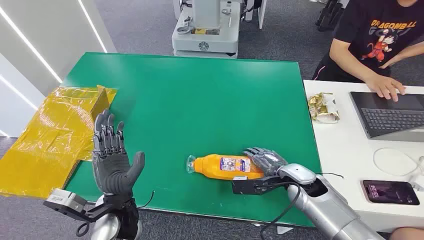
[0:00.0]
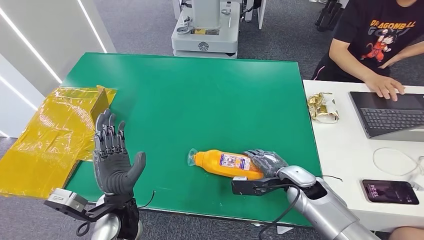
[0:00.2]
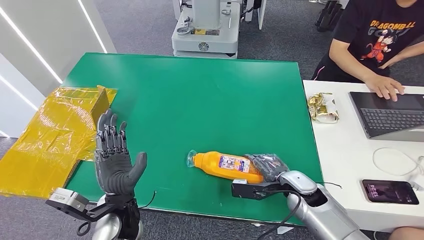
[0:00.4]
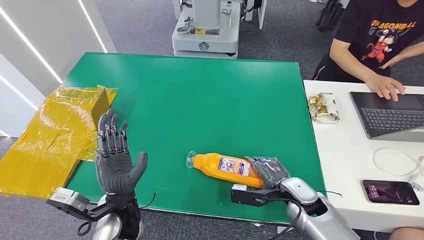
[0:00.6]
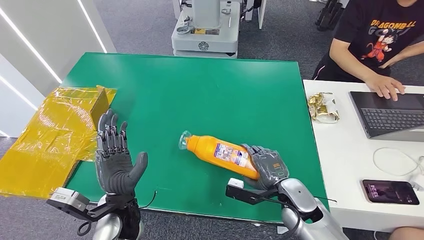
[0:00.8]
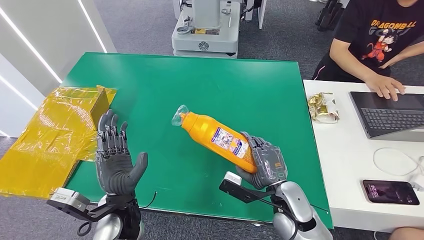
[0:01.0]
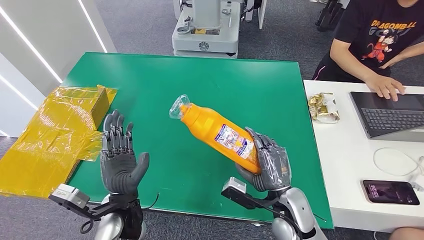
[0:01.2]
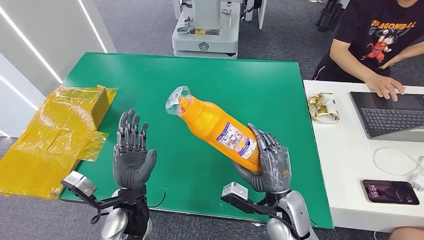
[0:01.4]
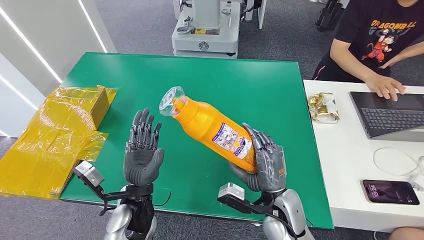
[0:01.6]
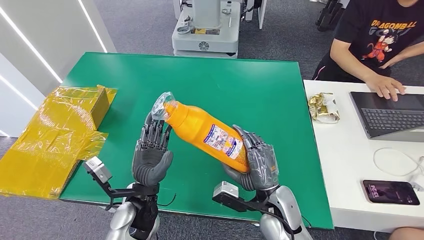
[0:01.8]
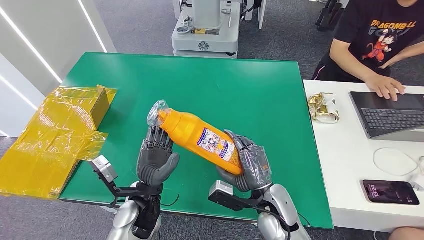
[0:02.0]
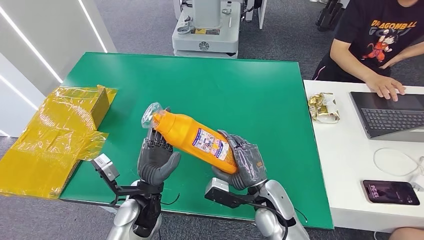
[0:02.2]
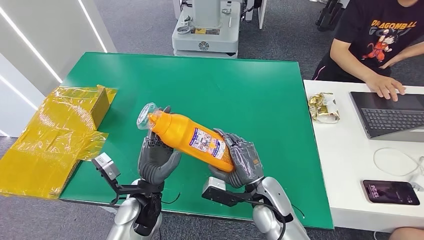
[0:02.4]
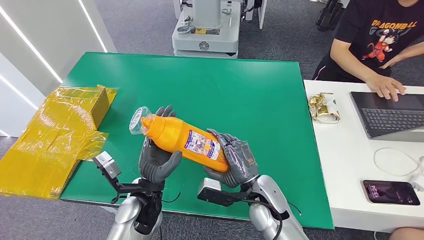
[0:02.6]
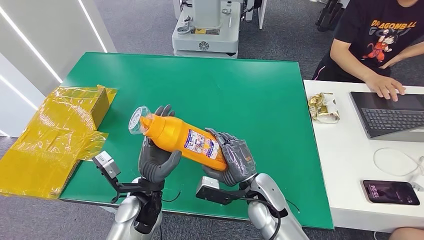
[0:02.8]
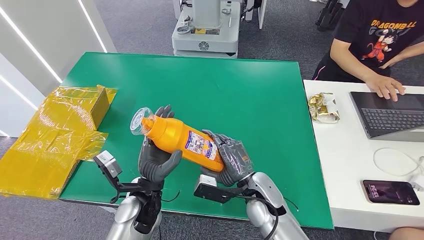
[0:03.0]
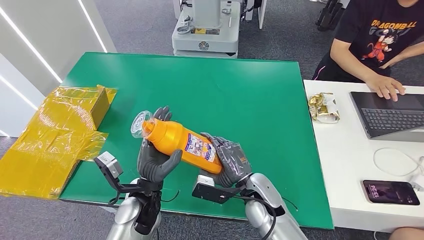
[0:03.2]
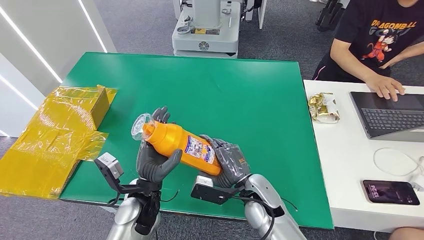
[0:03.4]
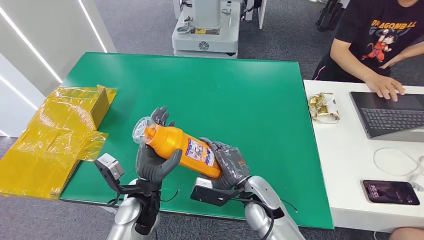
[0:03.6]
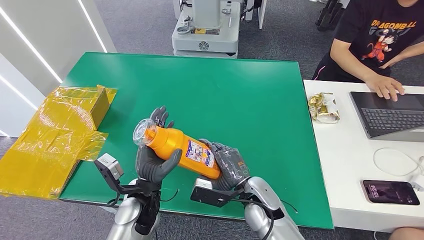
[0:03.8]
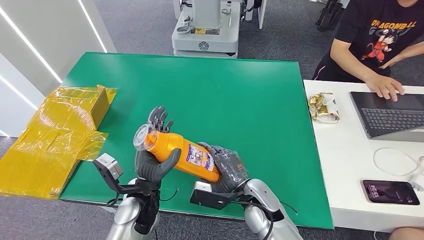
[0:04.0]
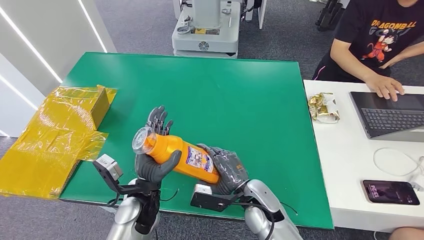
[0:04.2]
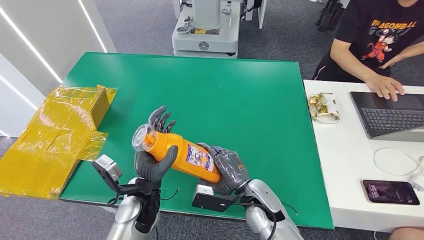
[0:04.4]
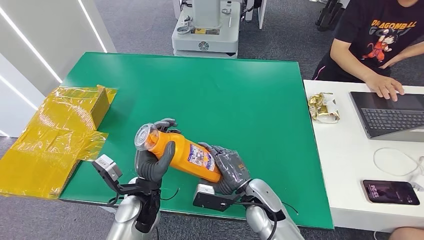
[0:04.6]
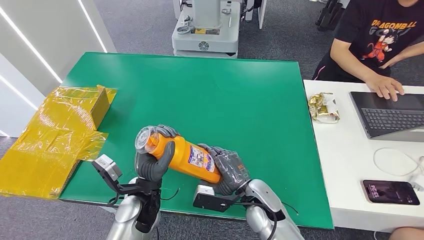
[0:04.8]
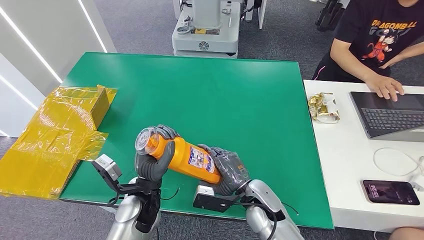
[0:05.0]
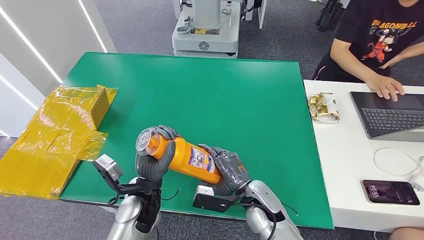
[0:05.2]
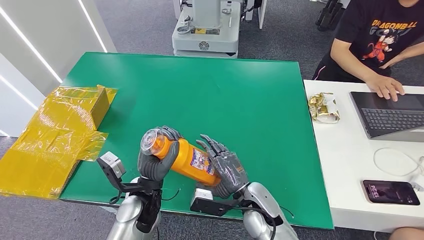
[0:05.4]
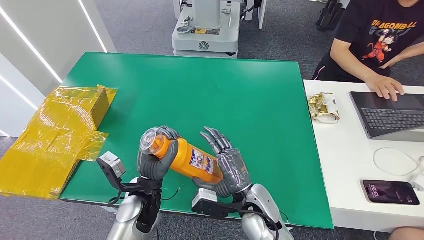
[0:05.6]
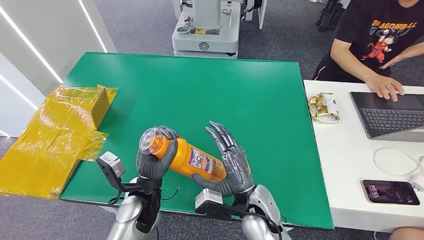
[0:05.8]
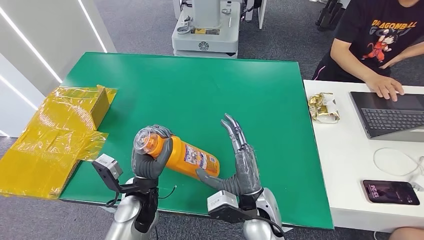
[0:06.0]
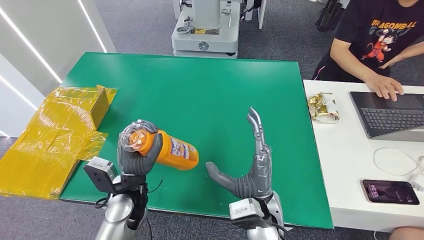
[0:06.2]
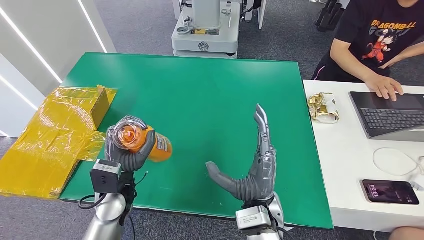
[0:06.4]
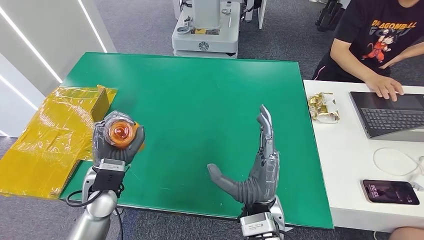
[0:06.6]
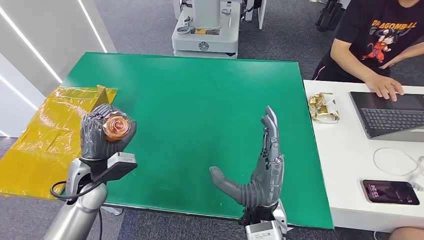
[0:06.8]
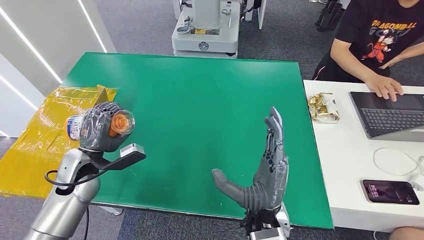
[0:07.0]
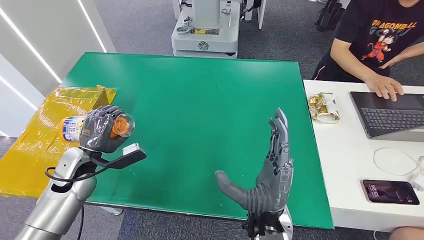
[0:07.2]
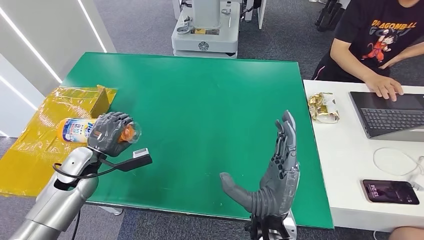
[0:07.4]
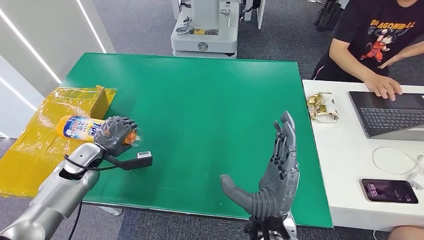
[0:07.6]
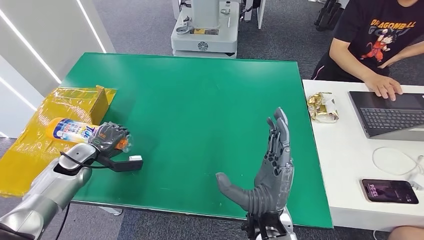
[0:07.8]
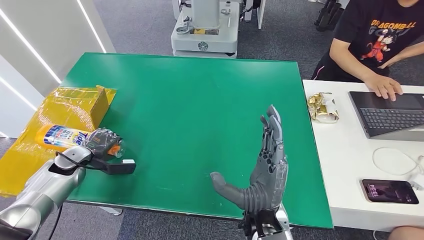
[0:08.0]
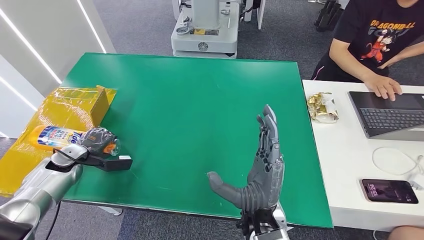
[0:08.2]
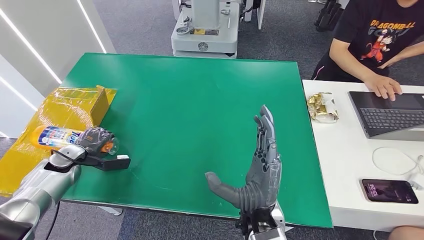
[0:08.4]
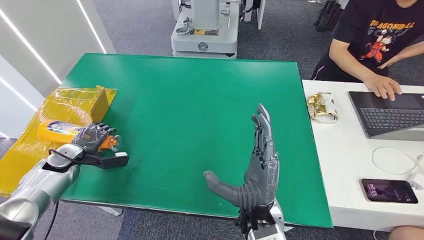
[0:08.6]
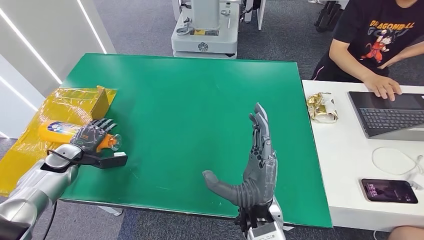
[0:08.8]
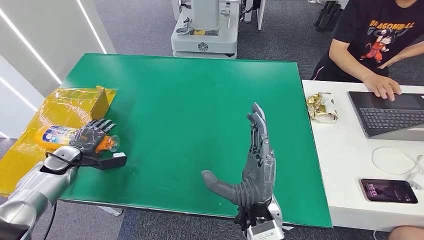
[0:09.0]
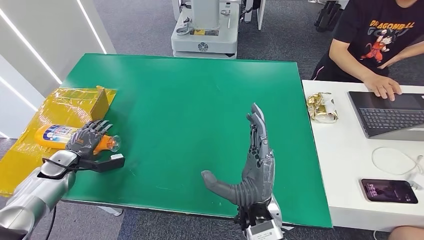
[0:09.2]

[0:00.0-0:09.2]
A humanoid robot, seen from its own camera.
Step, 0:00.0 to 0:02.6: Pick up the bottle from the table.
Step, 0:02.8 to 0:09.2: Turn the bottle to the front side.
0:01.6 to 0:03.0: The right hand changes place by about 5 cm.
0:03.0 to 0:04.6: There are only small adjustments of the hands.
0:04.6 to 0:06.2: The right hand is displaced upward by approximately 5 cm.
0:06.2 to 0:07.6: The left hand goes roughly 20 cm to the left and forward.
0:07.6 to 0:09.2: The left hand shifts some 10 cm to the left.

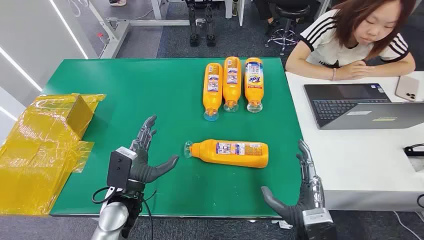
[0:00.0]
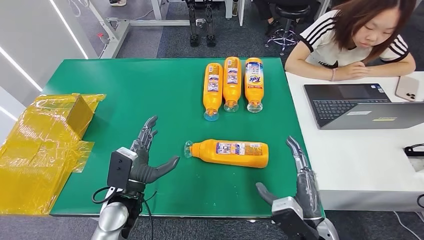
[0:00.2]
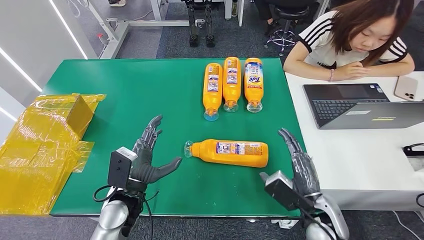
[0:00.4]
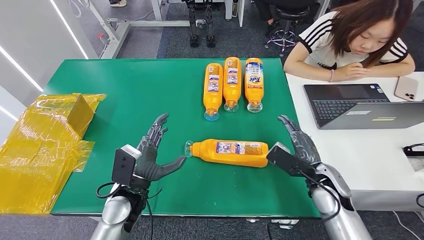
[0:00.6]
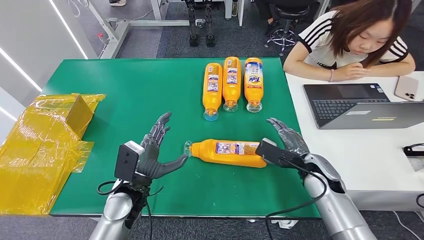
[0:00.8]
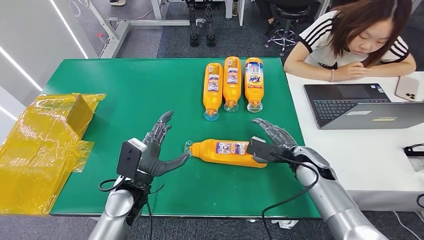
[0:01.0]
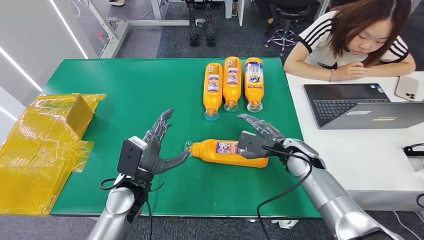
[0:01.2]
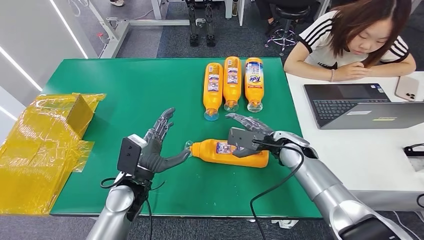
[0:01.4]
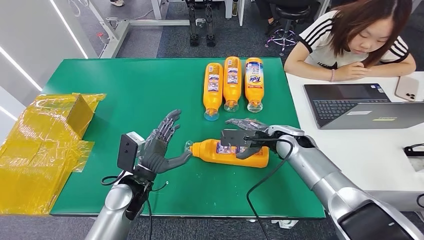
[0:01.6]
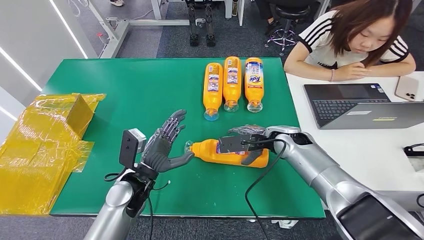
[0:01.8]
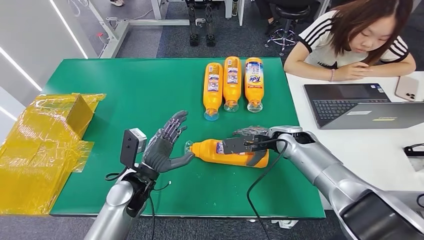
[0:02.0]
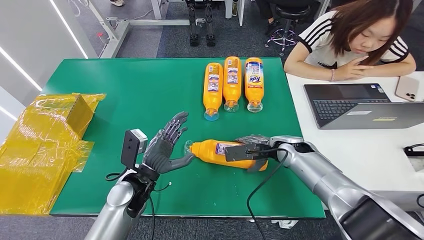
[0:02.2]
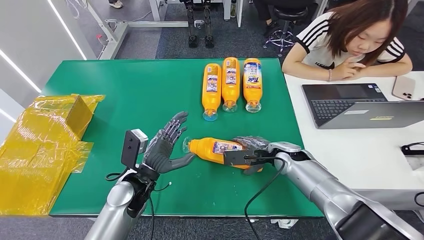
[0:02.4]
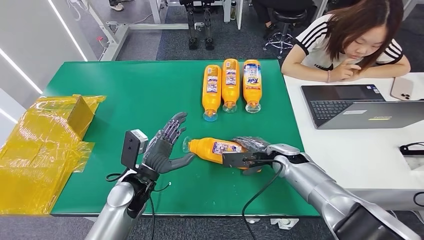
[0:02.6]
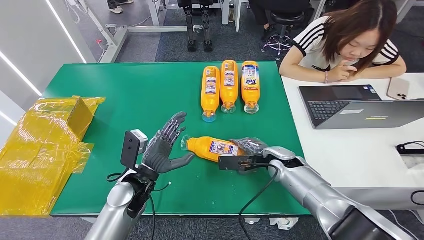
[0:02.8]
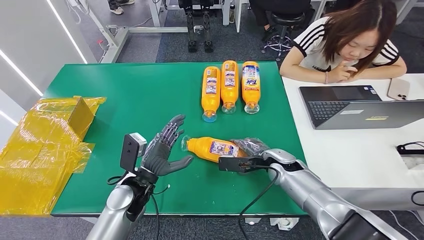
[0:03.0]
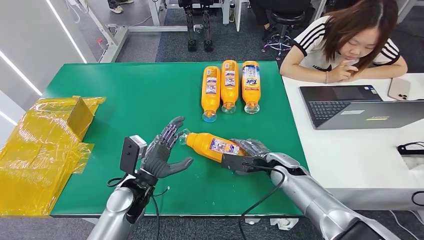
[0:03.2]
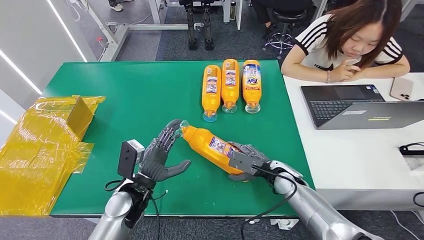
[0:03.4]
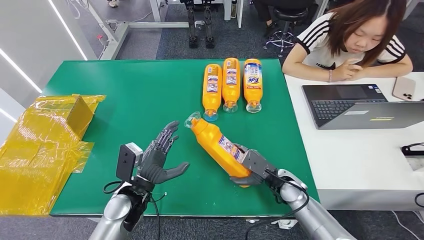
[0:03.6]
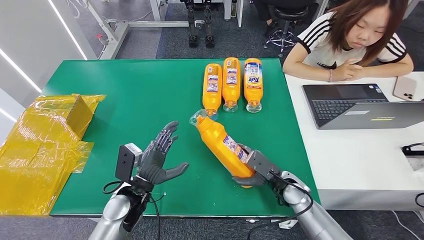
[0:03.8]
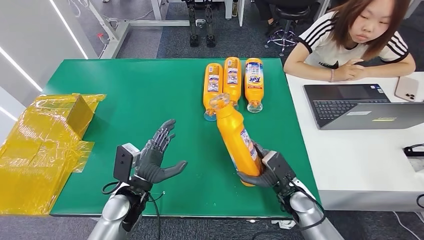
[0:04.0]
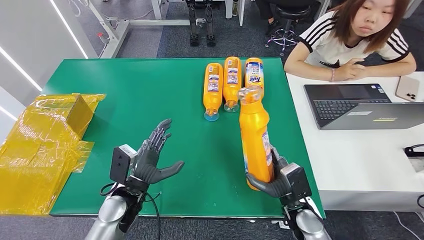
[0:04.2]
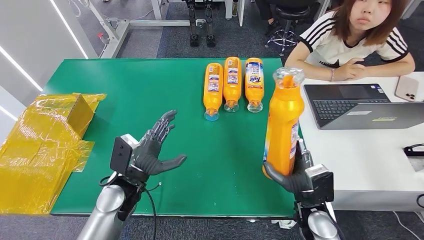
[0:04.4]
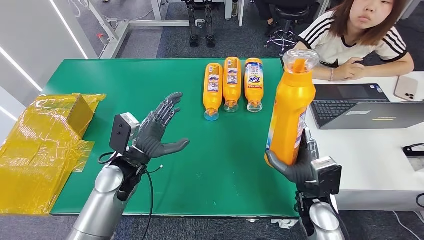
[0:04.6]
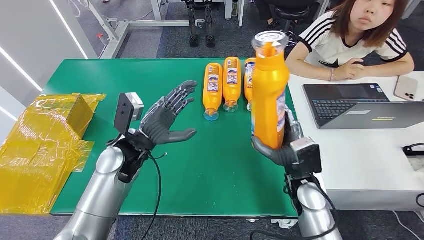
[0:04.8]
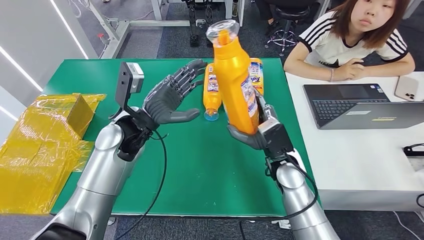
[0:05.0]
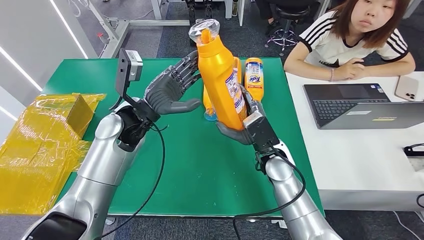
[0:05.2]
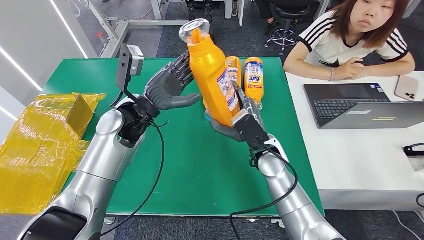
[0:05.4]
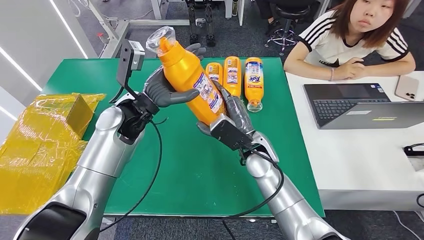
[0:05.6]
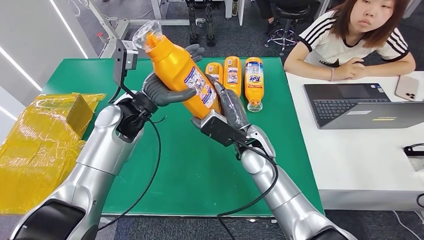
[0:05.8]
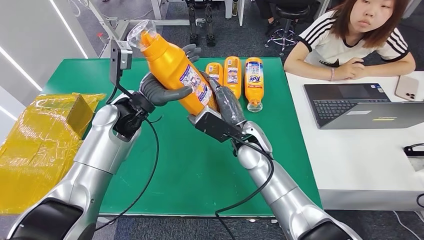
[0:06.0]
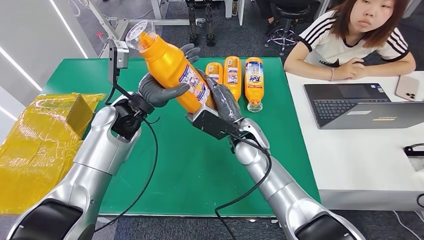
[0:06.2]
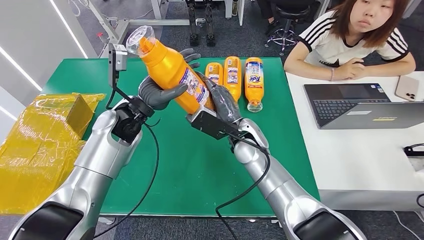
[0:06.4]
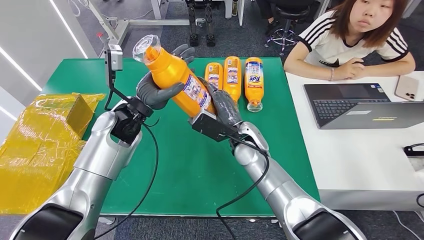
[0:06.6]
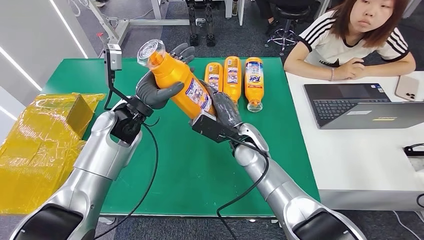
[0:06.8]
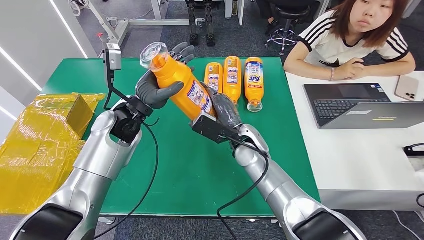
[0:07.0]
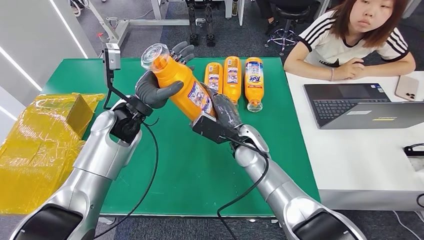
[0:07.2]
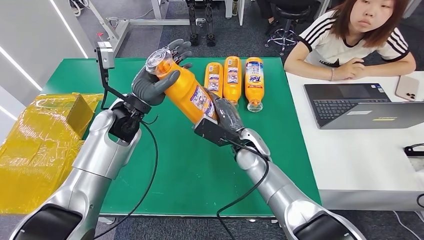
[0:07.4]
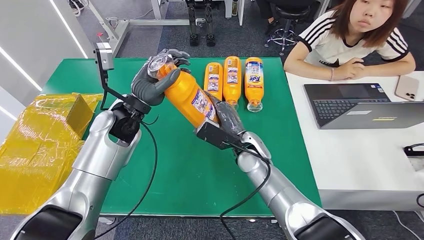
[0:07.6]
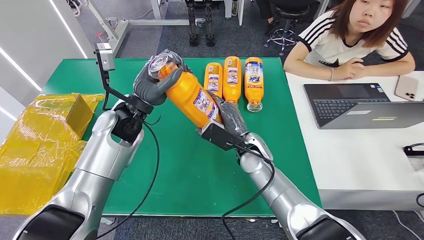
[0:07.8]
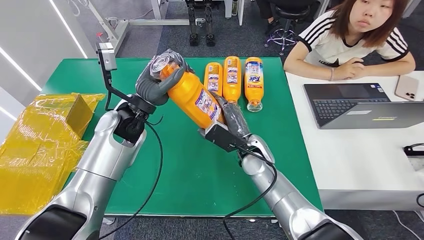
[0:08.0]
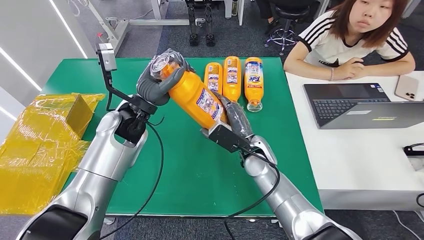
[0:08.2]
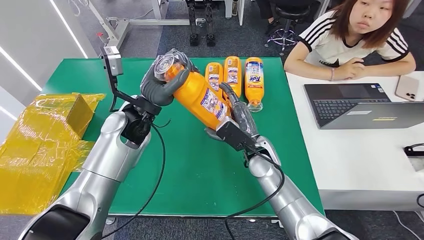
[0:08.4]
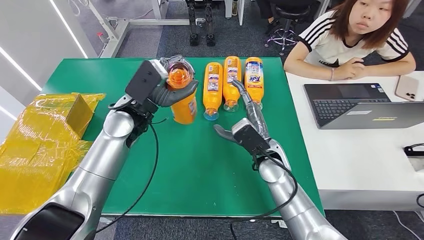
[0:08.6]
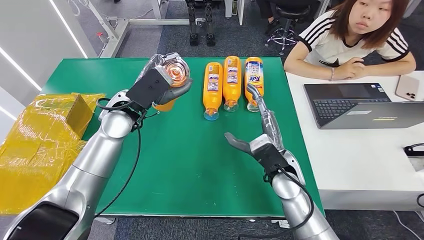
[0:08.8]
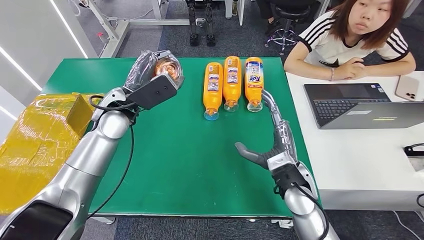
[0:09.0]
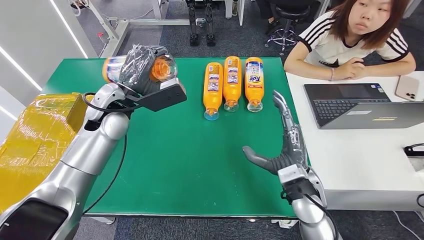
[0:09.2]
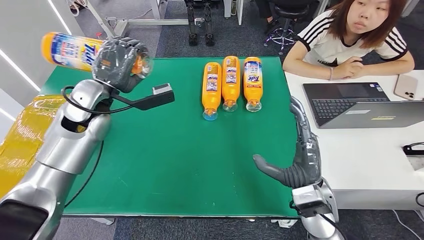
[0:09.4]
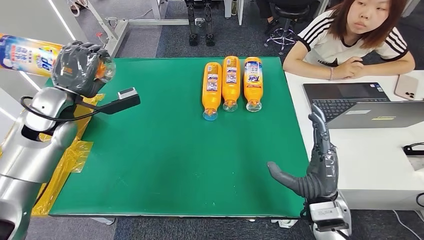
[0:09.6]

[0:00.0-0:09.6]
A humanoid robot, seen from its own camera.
Step, 0:00.0 to 0:03.8: Pick up the bottle from the table.
0:06.4 to 0:08.0: The right hand travels downward by approximately 5 cm.
